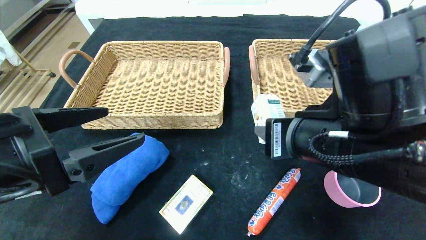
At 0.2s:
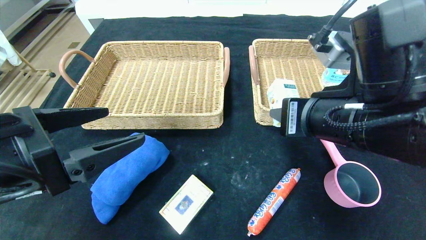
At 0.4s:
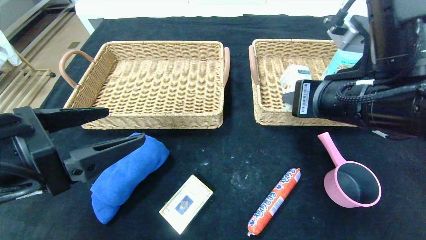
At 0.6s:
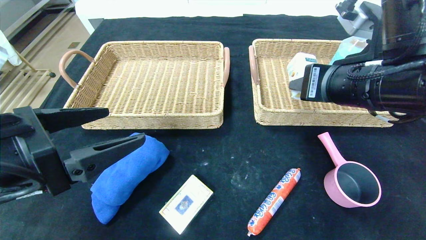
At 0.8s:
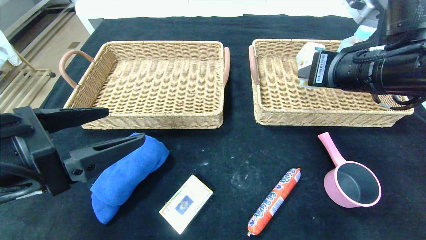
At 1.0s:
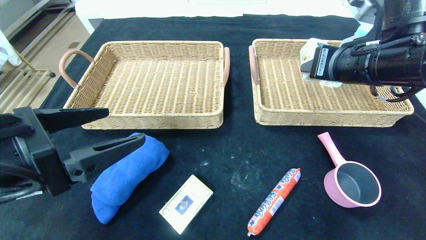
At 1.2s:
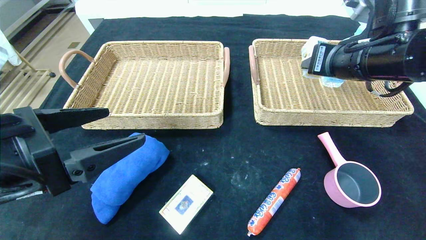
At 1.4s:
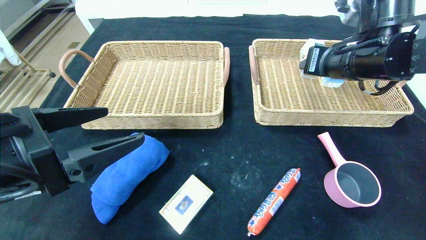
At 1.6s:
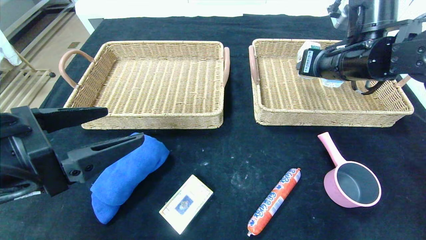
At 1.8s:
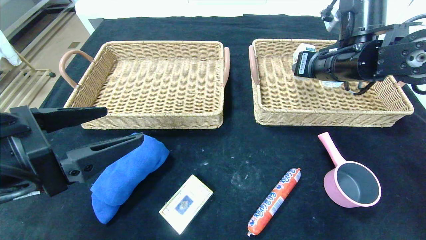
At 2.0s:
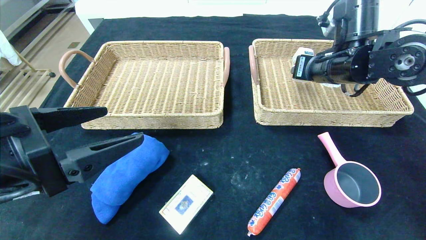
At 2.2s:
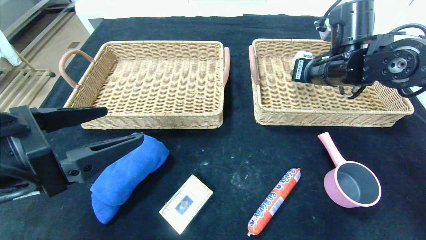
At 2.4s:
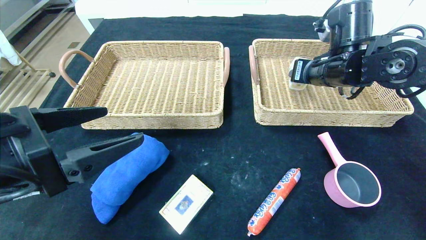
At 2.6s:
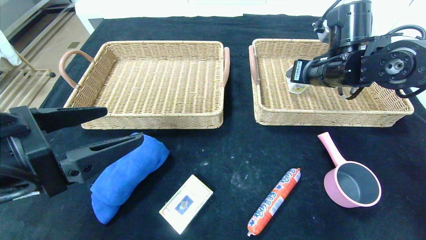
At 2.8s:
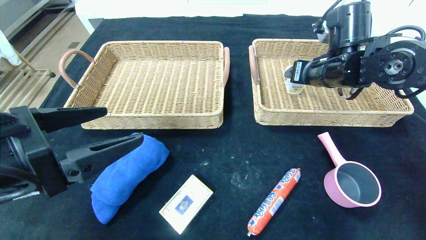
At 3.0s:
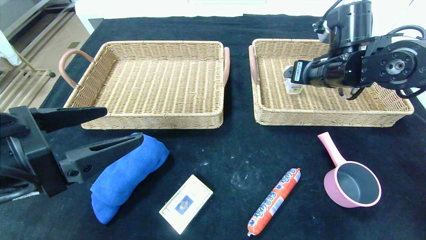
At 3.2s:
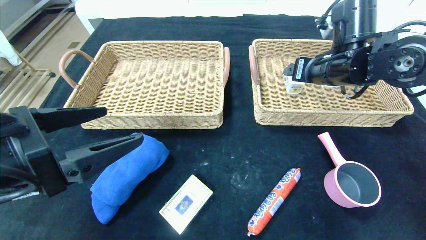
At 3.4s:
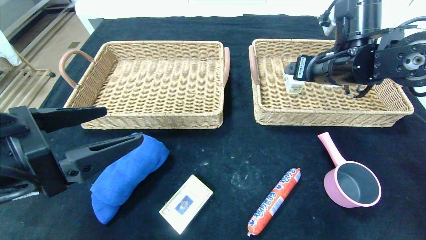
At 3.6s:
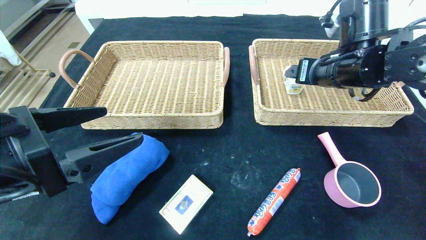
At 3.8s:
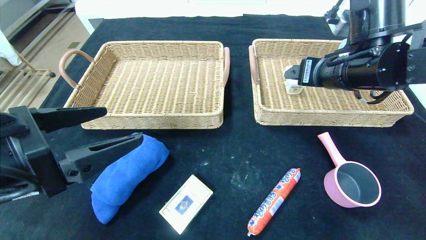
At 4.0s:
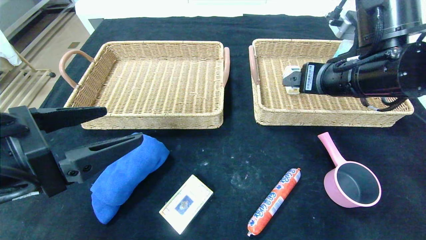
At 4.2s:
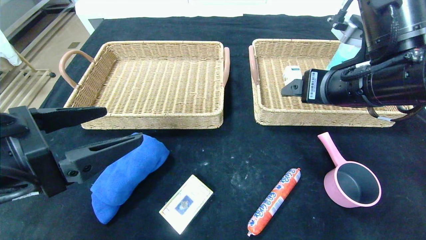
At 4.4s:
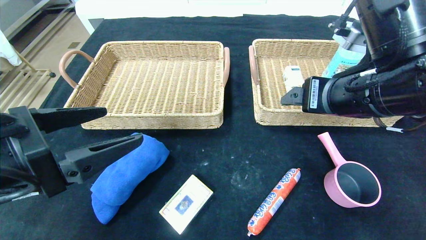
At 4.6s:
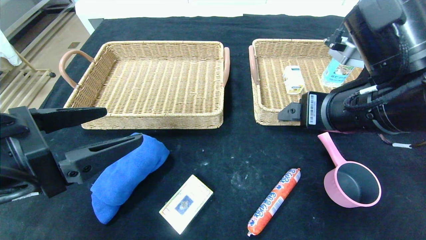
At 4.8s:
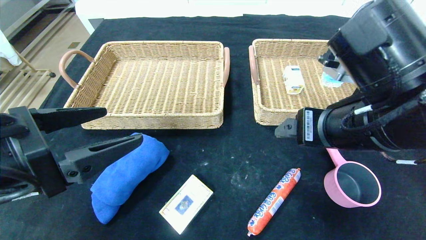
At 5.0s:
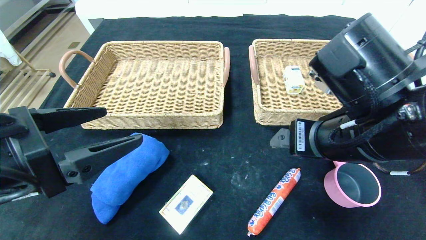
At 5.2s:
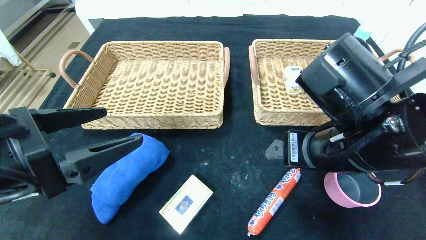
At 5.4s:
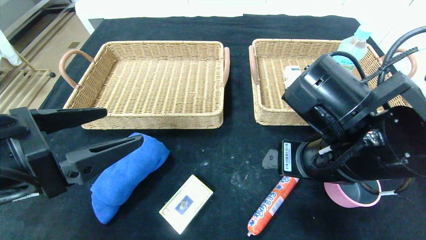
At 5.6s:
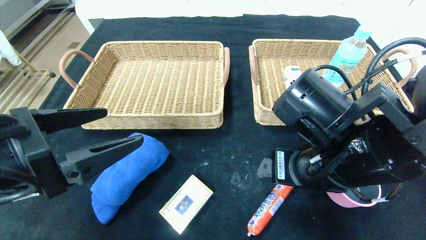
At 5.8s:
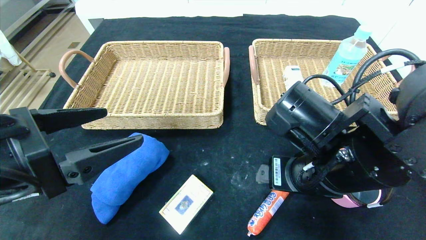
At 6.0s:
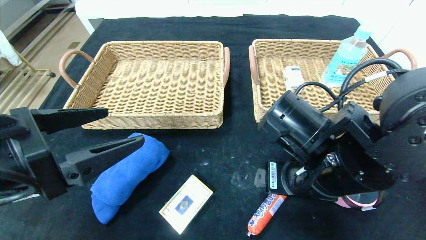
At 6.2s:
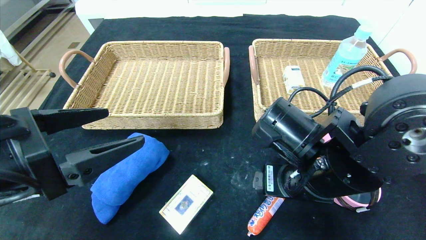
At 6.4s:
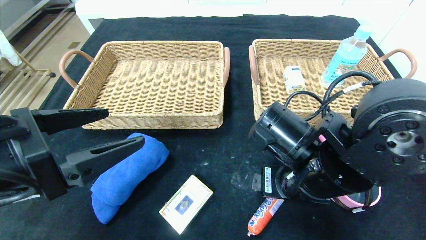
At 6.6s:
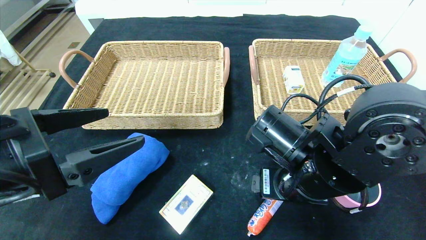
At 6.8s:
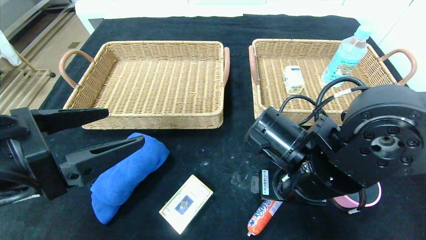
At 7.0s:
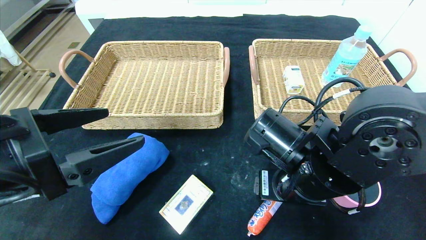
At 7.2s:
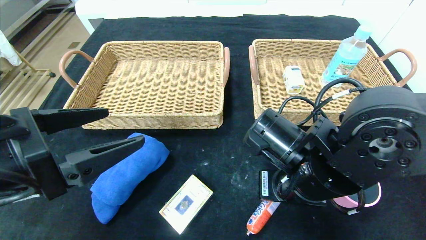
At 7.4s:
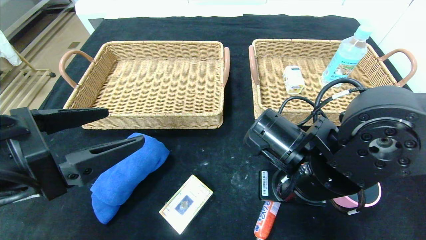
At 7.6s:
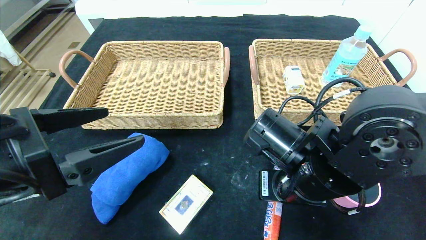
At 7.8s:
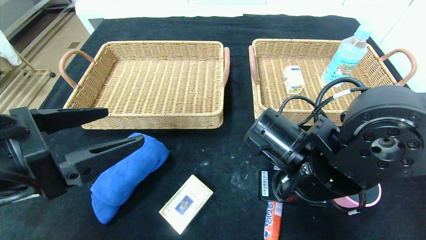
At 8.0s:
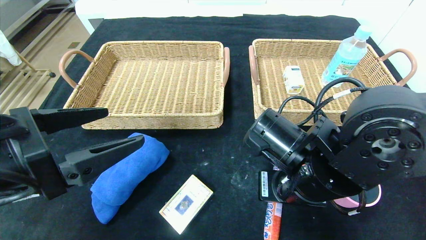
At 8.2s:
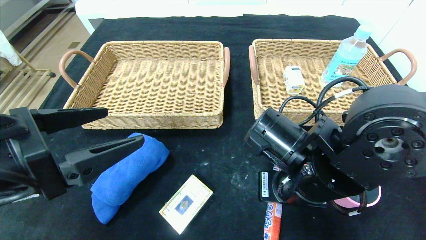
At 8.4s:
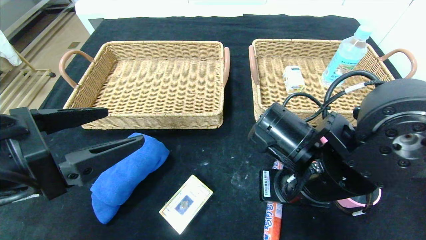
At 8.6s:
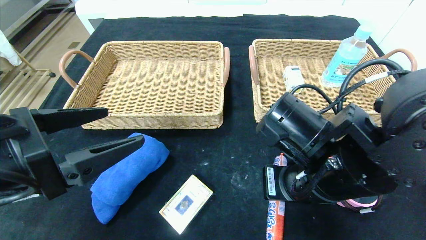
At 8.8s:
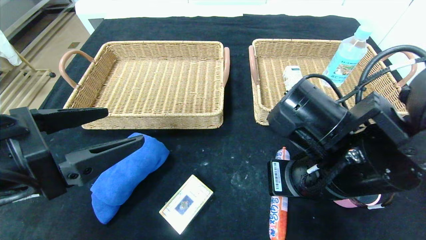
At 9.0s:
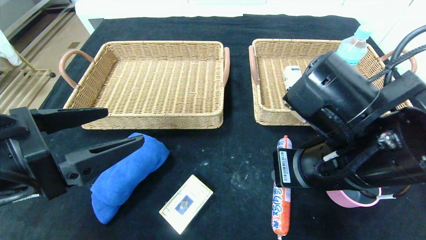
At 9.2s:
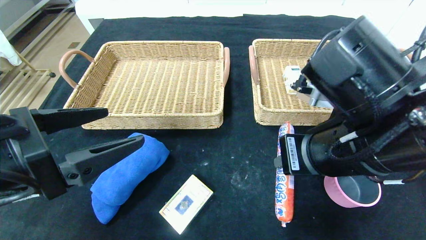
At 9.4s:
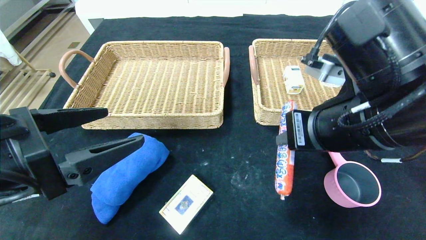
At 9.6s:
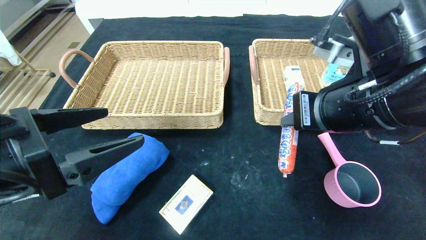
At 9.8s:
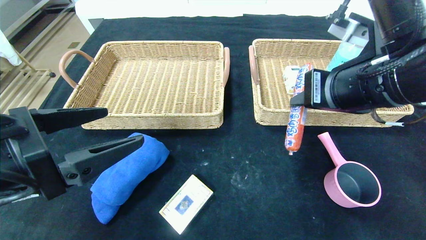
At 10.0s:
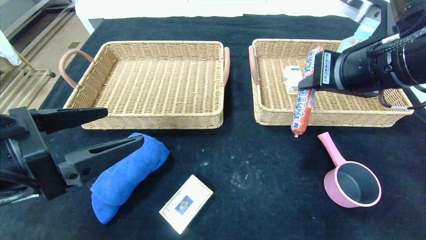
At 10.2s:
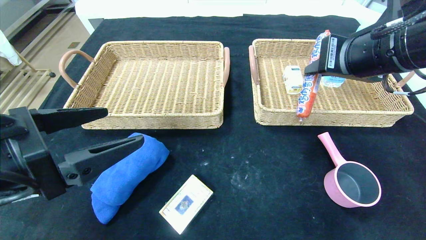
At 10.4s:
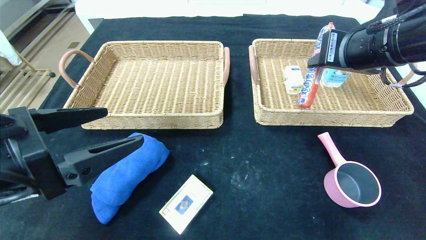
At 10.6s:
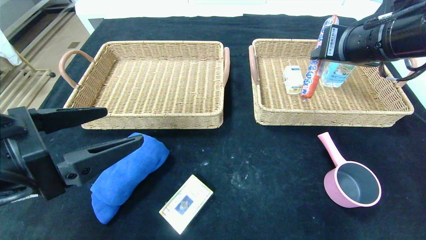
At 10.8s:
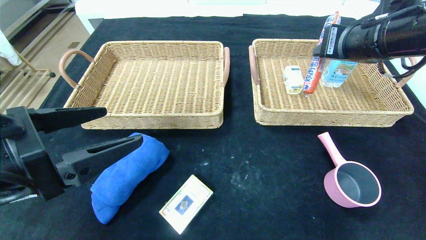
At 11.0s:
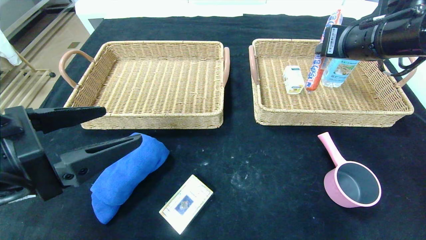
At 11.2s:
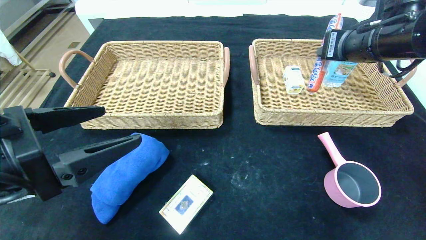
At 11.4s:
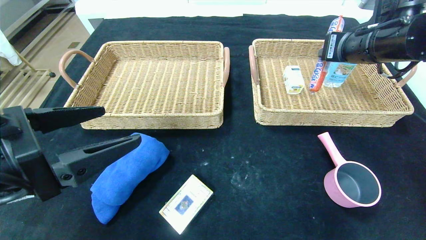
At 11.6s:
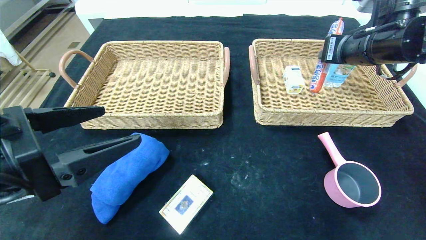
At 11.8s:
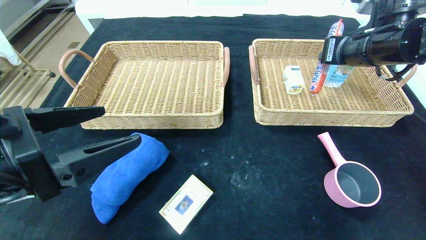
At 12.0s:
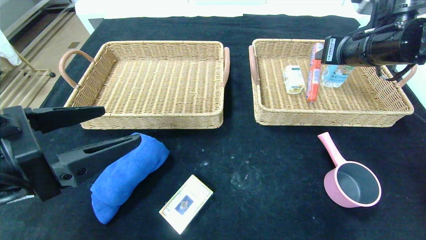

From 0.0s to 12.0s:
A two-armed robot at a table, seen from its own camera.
Step, from 0.0s to 3.2s: Grasp the ad milk and put it in the right basket.
From 0.0s to 1.6s: The right gripper goes some 20 cm forward and to the right.
From 1.6s to 3.0s: The right gripper opens.
From 3.0s to 4.4s: The right gripper goes some 15 cm backward.
From 4.4s to 6.0s: The right gripper heads downward and to the left, covering roughly 10 cm.
From 6.0s to 7.6s: The right gripper closes up.
From 7.6s to 9.0s: The right gripper is displaced upward by some 5 cm.
From 9.0s to 10.4s: The right gripper shifts some 15 cm upward, forward and to the right.
From 10.4s to 12.0s: The right gripper is displaced forward by roughly 5 cm.

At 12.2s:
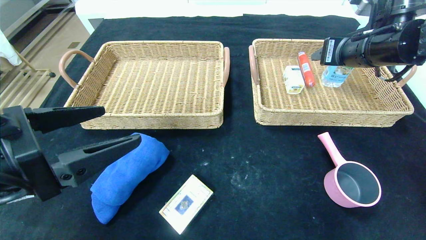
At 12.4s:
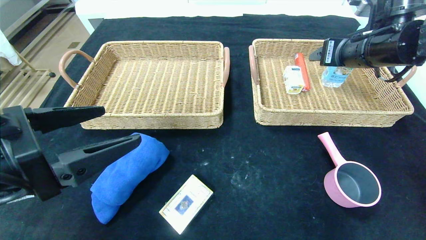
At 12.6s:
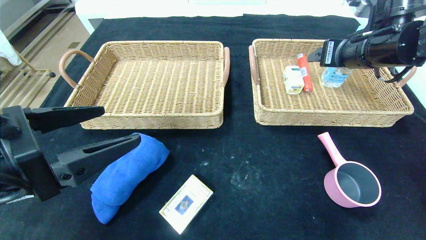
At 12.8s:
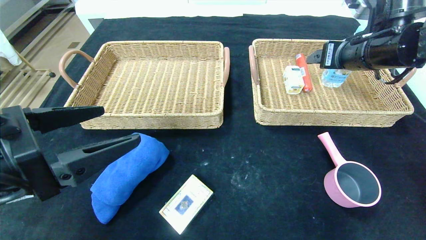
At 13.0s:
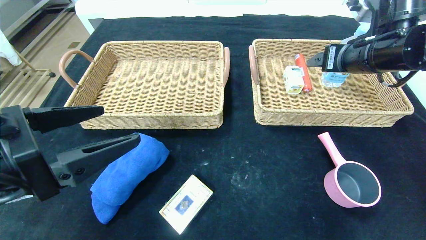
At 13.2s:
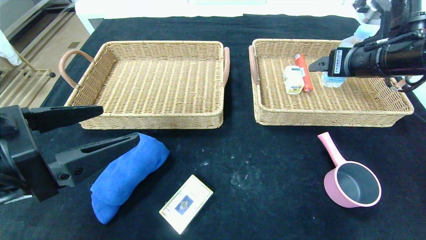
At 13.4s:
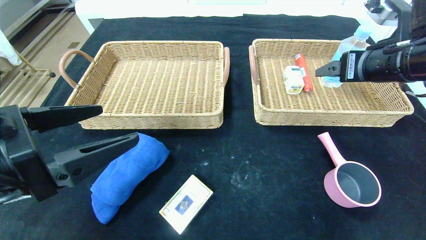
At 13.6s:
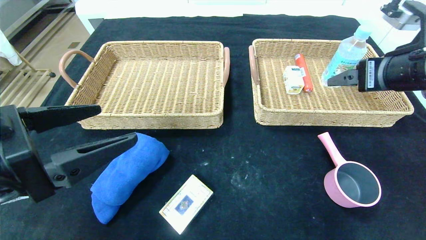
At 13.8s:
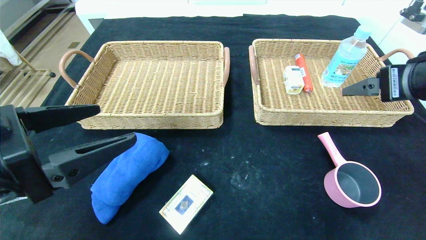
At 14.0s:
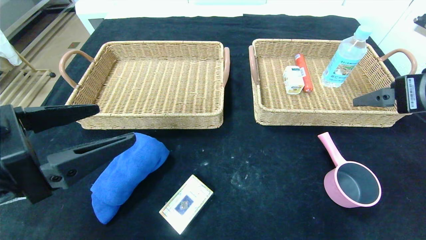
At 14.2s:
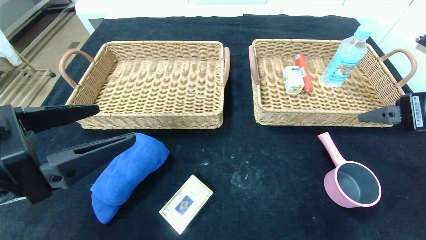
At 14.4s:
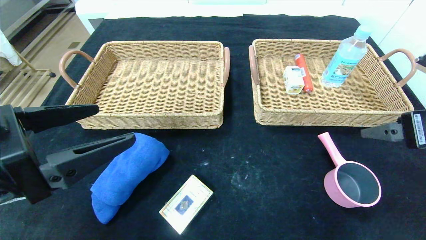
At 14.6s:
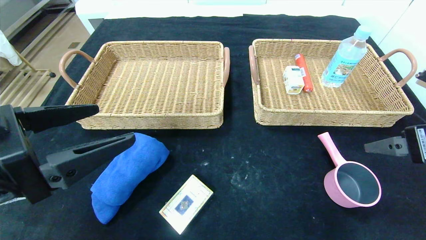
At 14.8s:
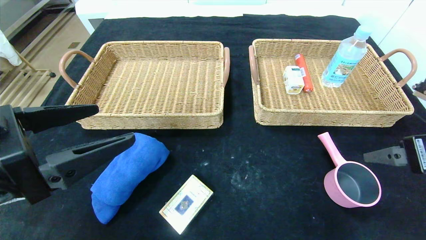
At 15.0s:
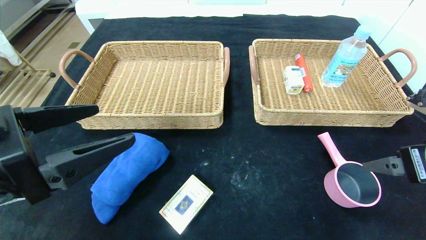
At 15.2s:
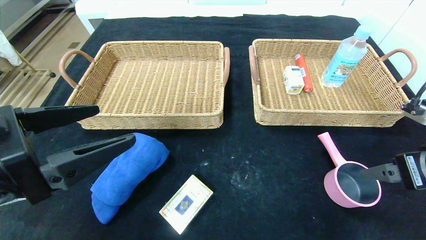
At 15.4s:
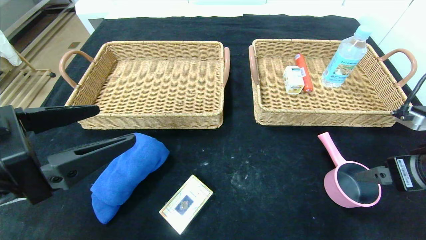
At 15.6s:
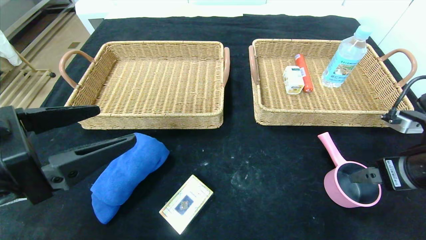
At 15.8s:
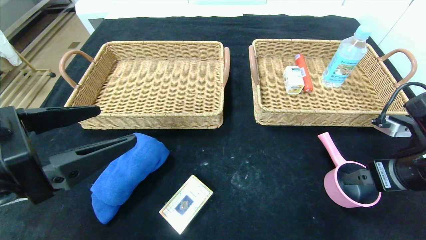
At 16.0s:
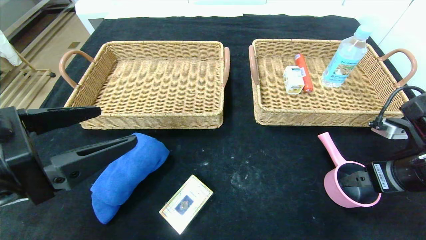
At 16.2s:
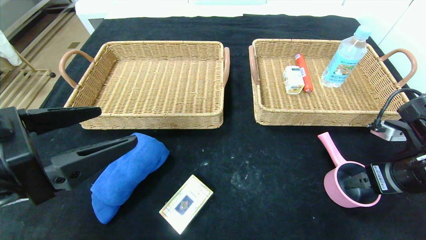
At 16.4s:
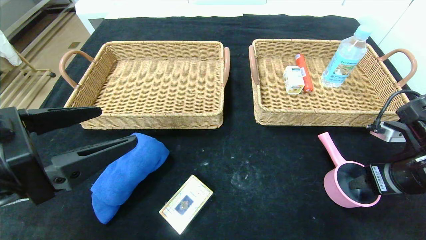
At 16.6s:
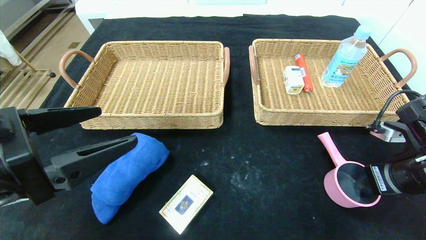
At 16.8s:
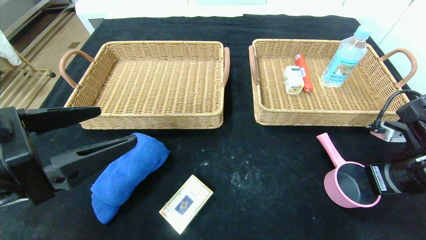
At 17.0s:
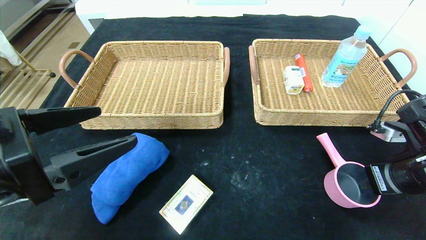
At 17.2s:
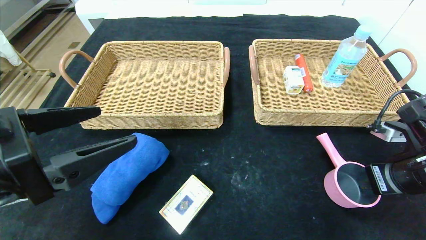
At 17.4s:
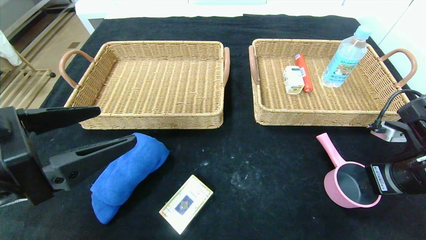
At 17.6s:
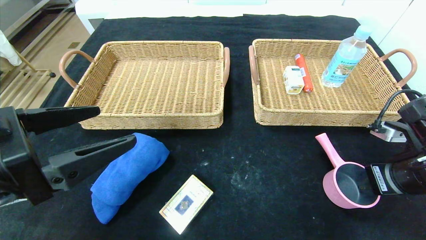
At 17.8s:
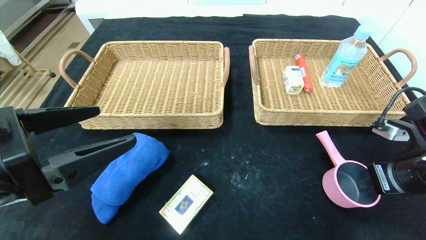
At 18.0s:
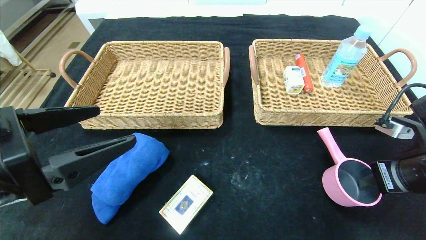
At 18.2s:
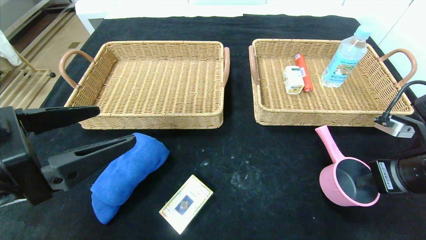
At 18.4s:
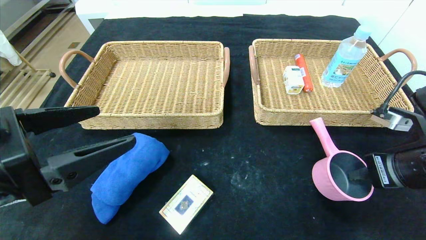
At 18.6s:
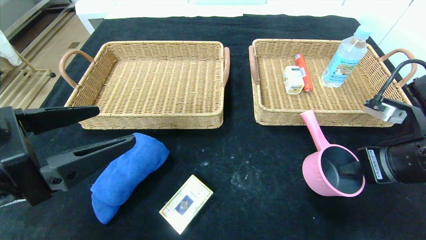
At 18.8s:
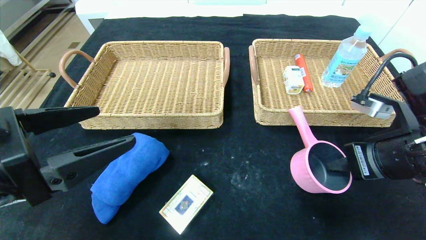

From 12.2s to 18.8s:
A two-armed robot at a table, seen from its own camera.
From 12.2s to 13.8s: The right gripper is displaced backward by roughly 10 cm.
From 13.8s to 15.4s: The right gripper travels downward by some 10 cm.
From 15.4s to 17.2s: The right gripper closes its fingers.
From 17.2s to 18.8s: The right gripper goes some 5 cm to the left.
